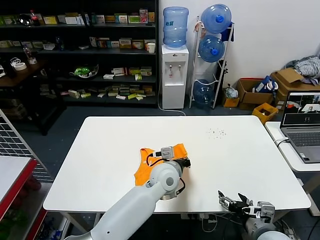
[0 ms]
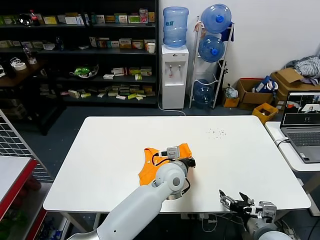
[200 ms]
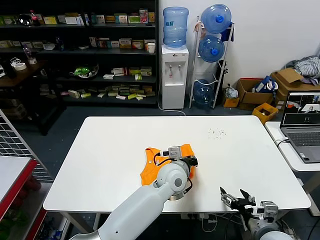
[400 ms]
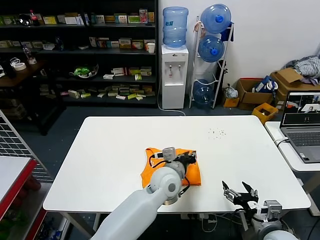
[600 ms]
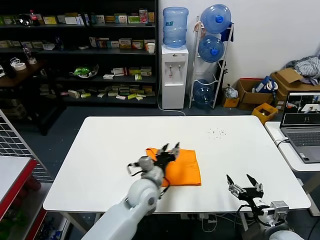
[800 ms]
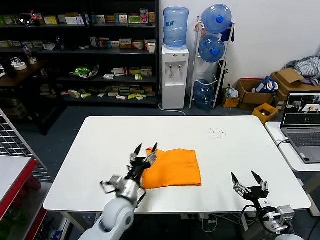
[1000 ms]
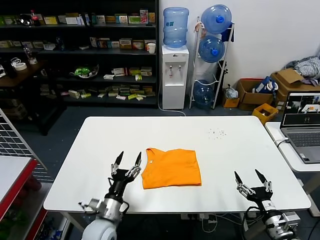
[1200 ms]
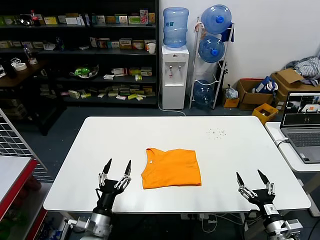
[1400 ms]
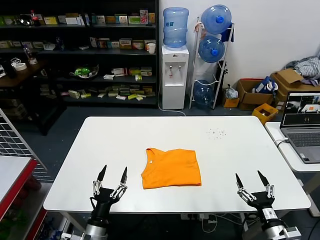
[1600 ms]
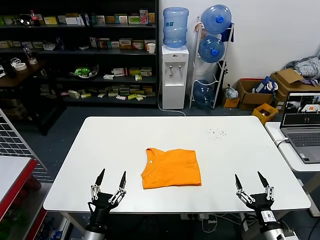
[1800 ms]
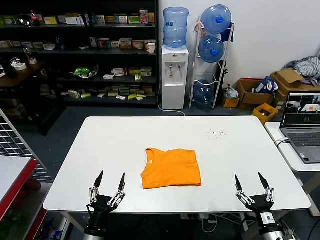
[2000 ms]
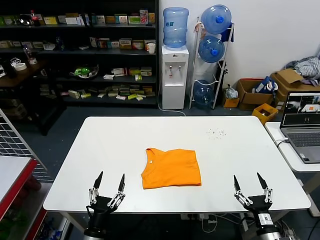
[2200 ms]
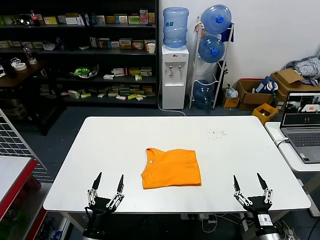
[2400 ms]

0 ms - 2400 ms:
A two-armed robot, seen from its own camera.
Task of the whole recording: fold and organize the clothes.
0 ms - 1200 ms: The left gripper goes approximately 25 cm to the left, backward and downward, and opens up; the right gripper is displaced to the right by roughly 5 cm.
1200 ms - 2400 ms: The right gripper moves roughly 5 cm. The left gripper travels backward by about 10 cm.

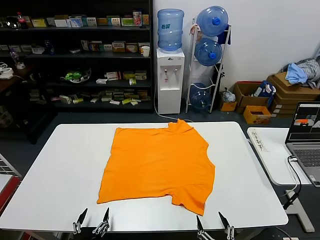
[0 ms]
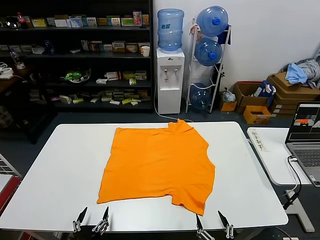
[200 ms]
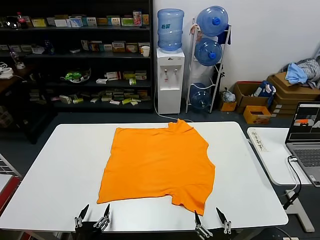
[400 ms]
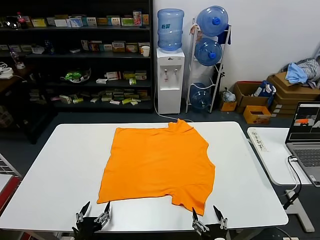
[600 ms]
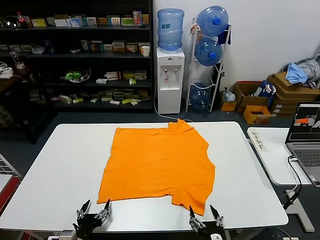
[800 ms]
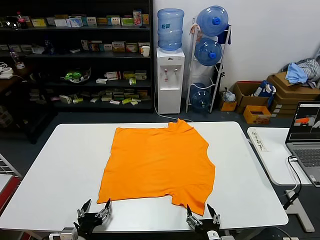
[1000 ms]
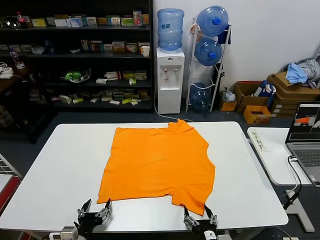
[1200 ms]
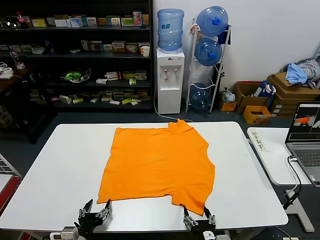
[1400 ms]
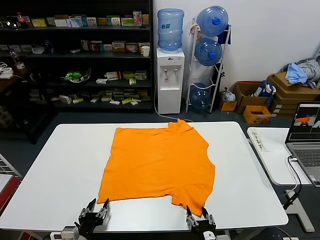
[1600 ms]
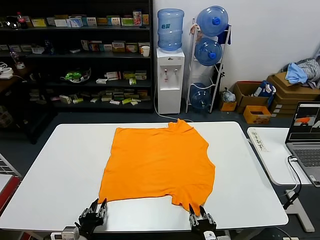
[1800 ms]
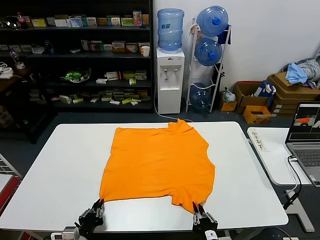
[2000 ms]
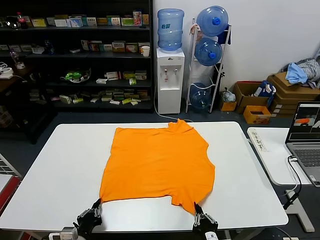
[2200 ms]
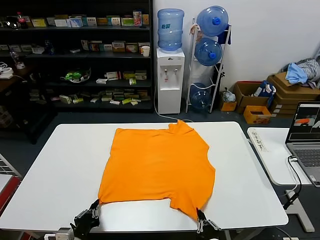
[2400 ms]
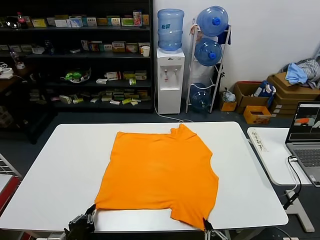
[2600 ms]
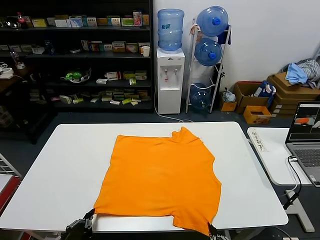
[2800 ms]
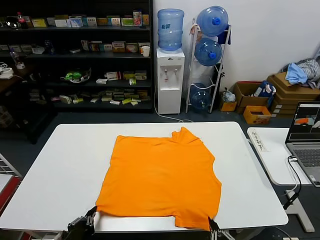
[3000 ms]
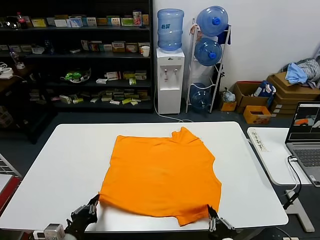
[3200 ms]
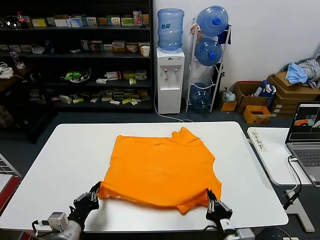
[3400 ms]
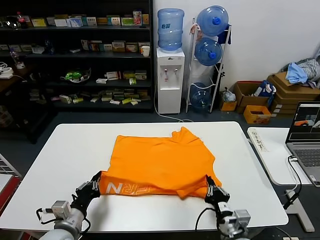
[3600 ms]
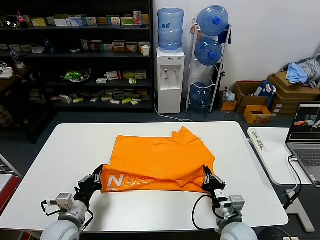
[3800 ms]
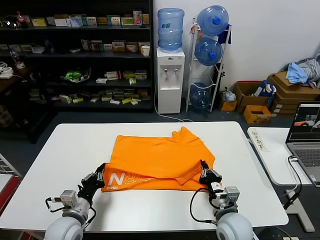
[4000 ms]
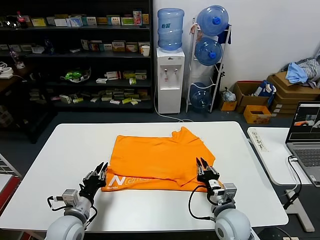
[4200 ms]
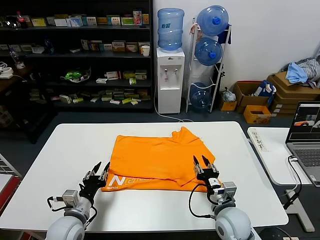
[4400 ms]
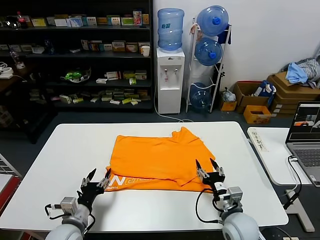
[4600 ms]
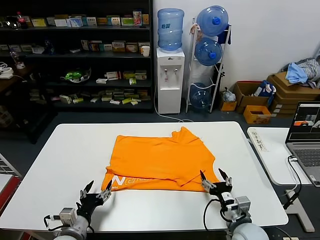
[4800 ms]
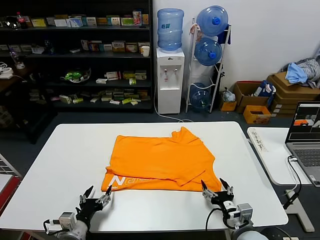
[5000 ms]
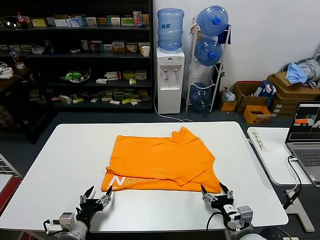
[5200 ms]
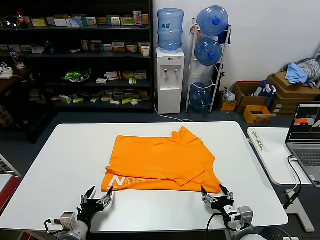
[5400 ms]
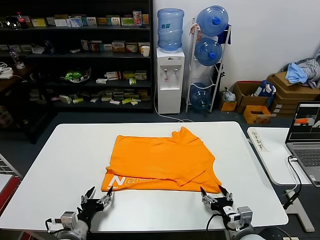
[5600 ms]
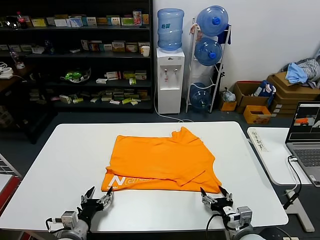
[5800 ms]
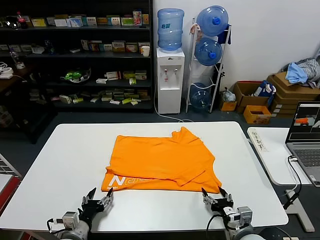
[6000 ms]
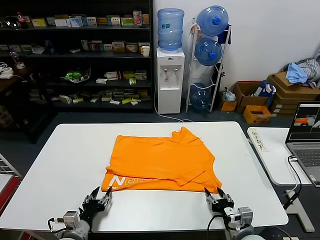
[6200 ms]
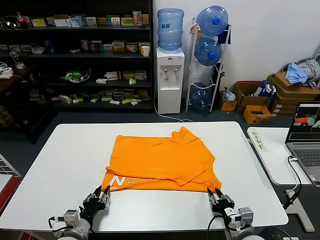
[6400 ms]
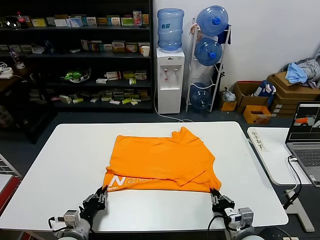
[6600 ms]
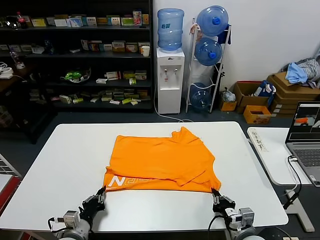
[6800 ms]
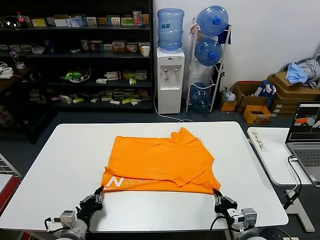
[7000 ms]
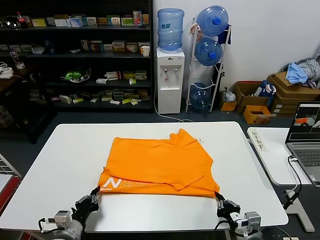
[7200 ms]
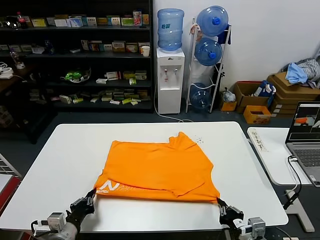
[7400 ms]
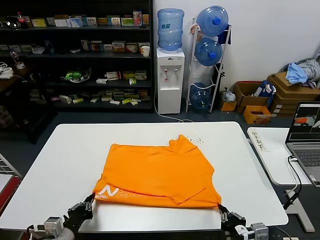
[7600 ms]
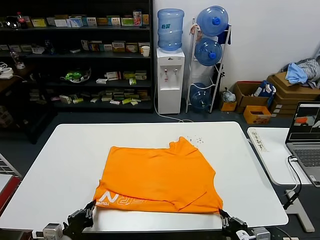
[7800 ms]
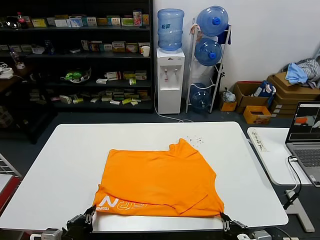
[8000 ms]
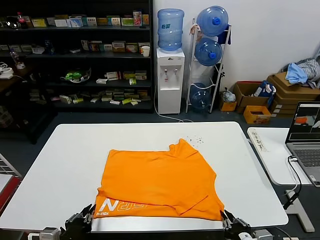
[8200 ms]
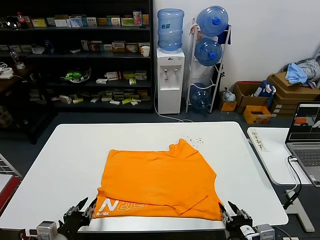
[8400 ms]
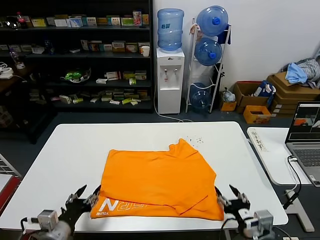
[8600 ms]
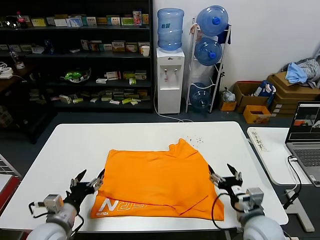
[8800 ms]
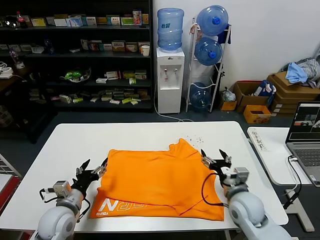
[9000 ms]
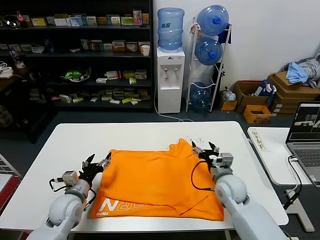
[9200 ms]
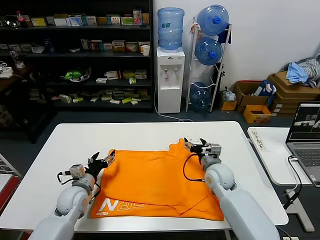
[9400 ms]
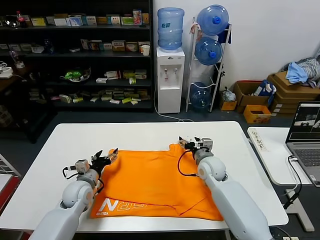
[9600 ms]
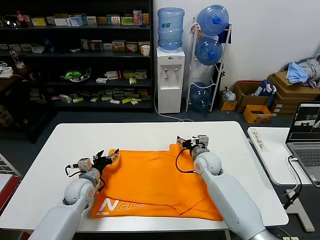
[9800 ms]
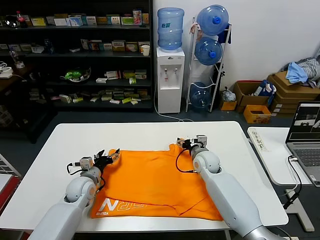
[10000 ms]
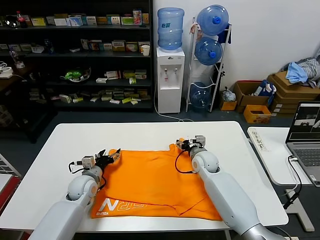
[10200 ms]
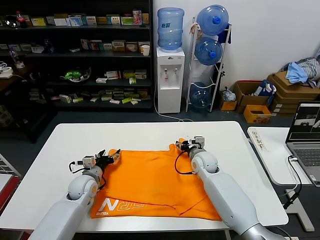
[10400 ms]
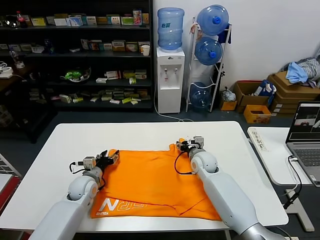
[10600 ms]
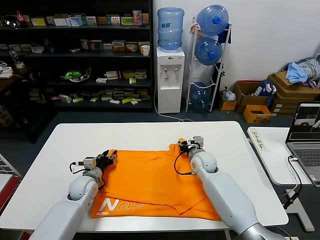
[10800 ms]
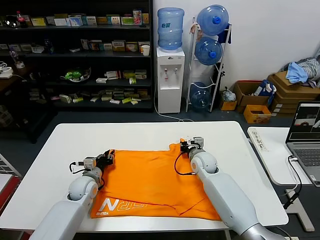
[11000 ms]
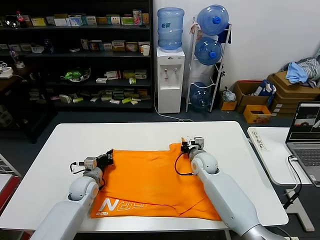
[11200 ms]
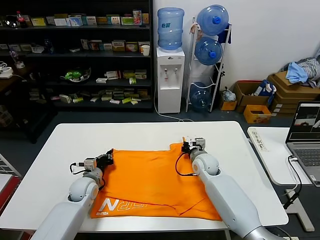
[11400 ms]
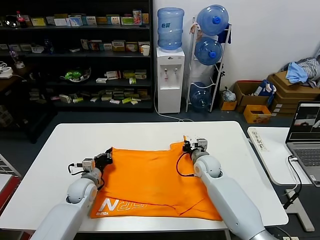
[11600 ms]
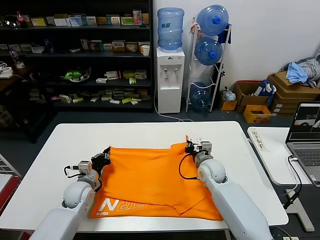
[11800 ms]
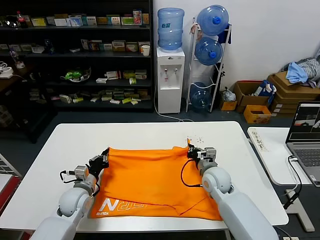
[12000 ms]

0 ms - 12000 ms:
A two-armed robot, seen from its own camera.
Task of the whole recording: fold and organize the clothes.
Step, 0 ms - 2400 ms: use both grippers simultaneously to clamp the lower edge of the clothing fabric.
Step, 2600 ms - 4400 ms: use both grippers to drag the lower edge of the fabric forward and fold it over the upper edge.
Step, 4600 ms - 8200 ms: Drag the clothes downward with both gripper.
Step, 8400 ms - 11400 ms: use both grippers simultaneously to clamp the upper edge of the clothing fabric.
1600 ms - 3000 ms: The right gripper moves backward and upward, approximately 10 cm, and closes its fingers; the left gripper goes approximately 5 cm upward, and closes.
3000 ms - 4400 ms: The right gripper heads forward, covering about 20 cm, and opens; the left gripper travels forward by some 15 cm, and opens.
4400 ms - 6000 ms: The right gripper heads backward, covering some 5 cm, while the left gripper goes some 5 cm downward, and opens up.
6000 ms - 7600 ms: The right gripper travels backward and upward by about 10 cm, and closes; the left gripper is displaced upward by about 5 cm, and closes its fingers.
7600 ms - 9000 ms: The left gripper moves forward, about 10 cm, and opens up. The right gripper goes about 20 cm forward, and opens up.
9000 ms - 10400 ms: The left gripper heads forward, covering some 15 cm. The right gripper travels forward and to the left by roughly 20 cm.
10400 ms - 12000 ms: The right gripper heads backward, covering about 10 cm, and closes up; the left gripper closes.

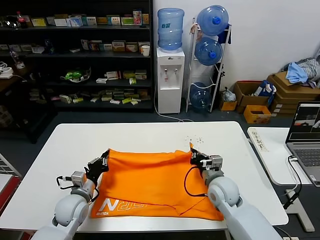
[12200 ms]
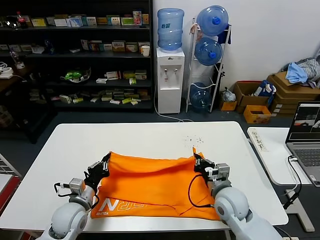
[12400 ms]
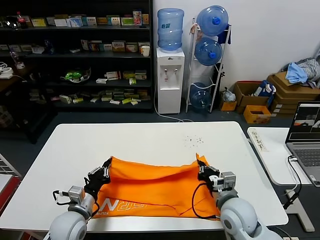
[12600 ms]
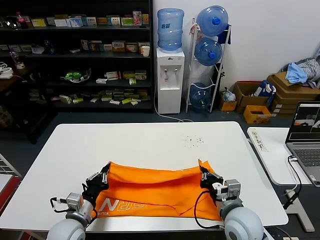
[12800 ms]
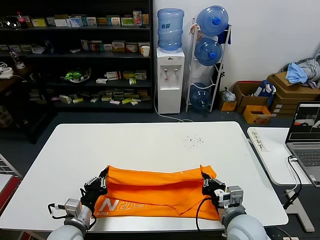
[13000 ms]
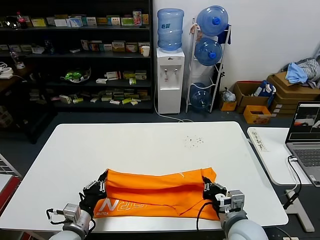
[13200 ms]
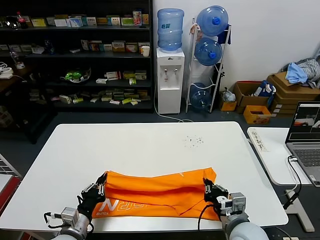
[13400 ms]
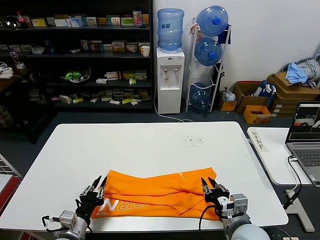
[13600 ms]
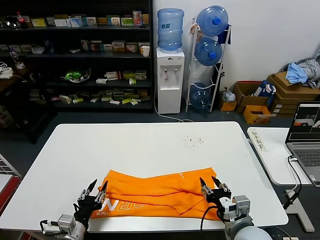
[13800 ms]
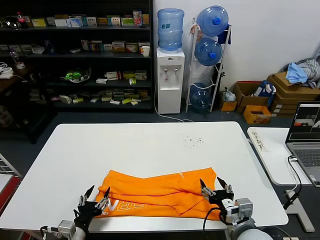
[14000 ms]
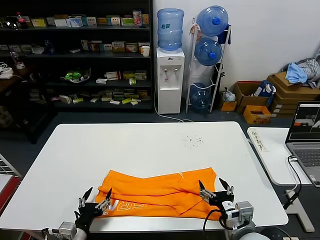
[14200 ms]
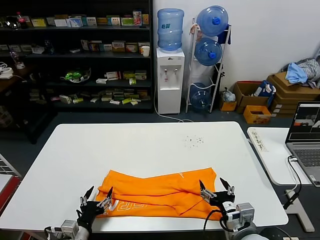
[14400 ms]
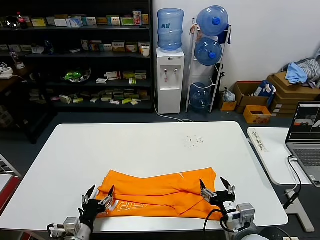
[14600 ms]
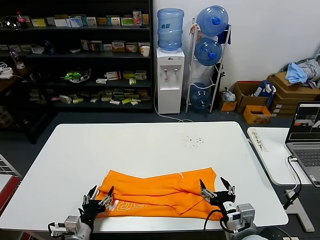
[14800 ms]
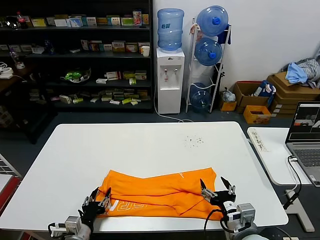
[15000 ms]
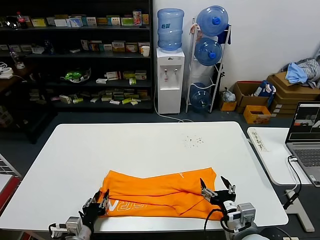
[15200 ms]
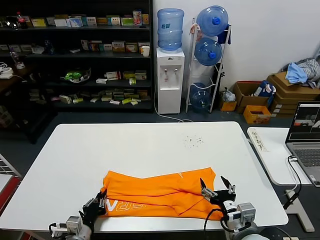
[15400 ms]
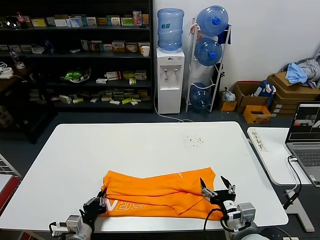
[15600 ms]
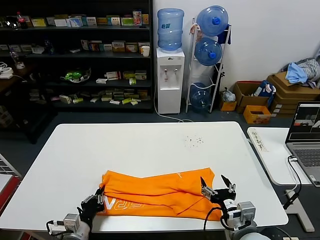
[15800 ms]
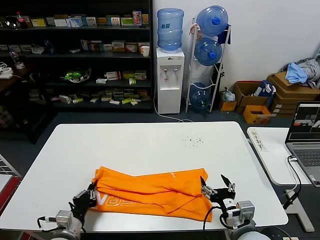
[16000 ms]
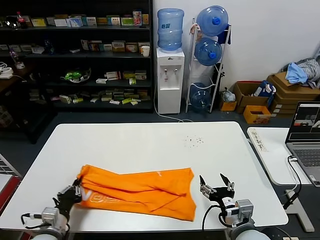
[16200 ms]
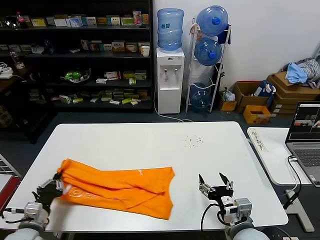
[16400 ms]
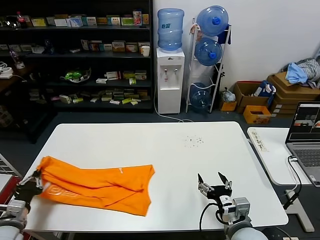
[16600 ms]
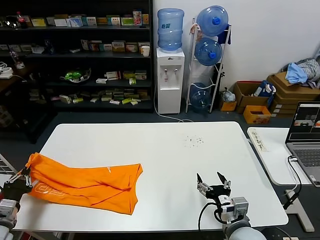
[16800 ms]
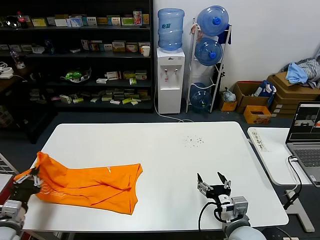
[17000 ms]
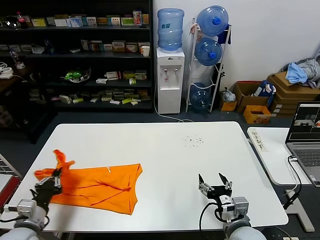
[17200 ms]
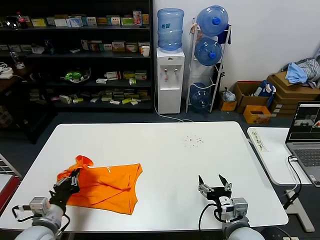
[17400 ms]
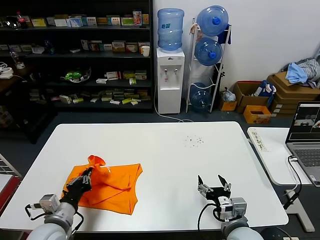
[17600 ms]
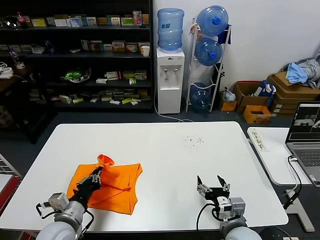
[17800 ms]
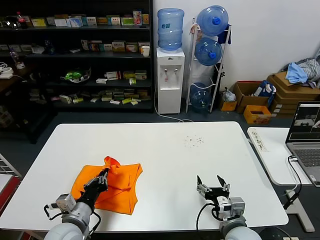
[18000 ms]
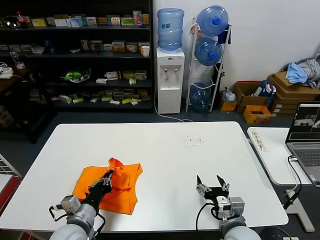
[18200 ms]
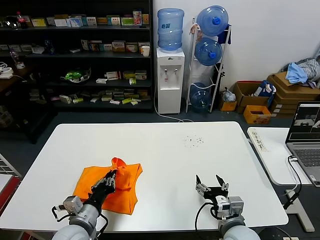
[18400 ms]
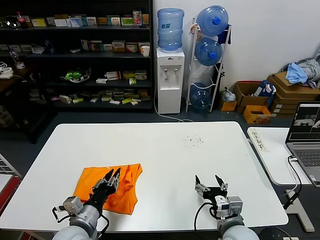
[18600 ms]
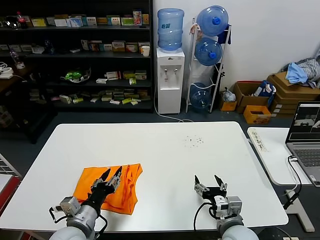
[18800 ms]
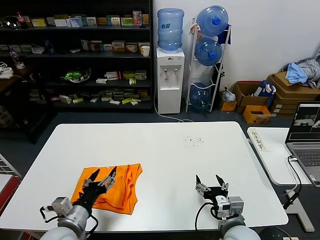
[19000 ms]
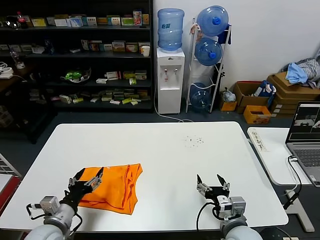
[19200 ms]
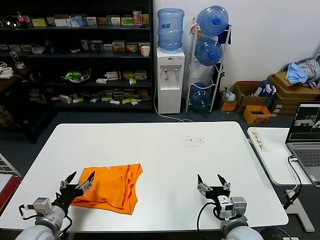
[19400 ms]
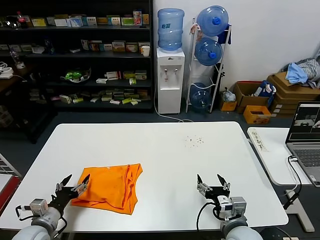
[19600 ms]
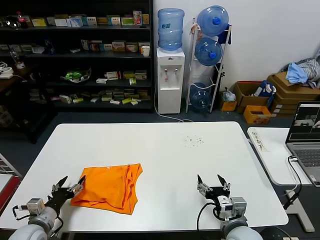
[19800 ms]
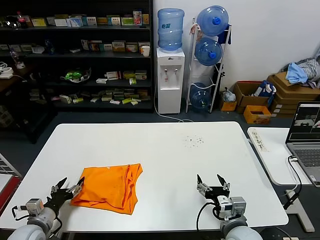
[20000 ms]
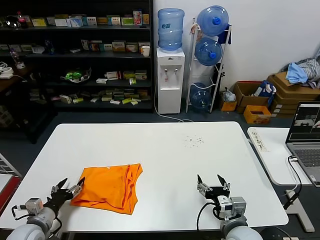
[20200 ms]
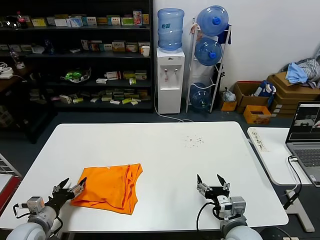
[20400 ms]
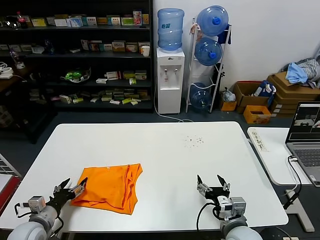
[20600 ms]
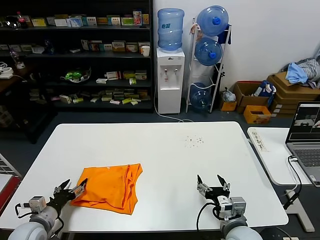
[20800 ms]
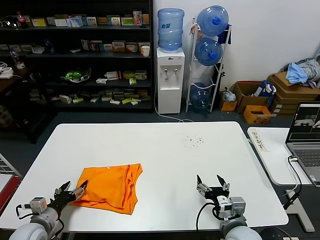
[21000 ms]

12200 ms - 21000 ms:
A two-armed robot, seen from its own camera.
Task of the whole recording: fold and organize the clothes.
Step, 12200 ms - 13600 ms: use both grippers to drag the upper edge of the fabric backward and fold it over the lower edge.
Step, 13800 ms - 15600 ms: use the left gripper to clamp the left edge of the fabric.
Step, 16000 ms - 18800 ms: use the left gripper to drag the left edge of the fabric to the left and folds it over the right edge.
12200 ms - 13600 ms: The two grippers go some 15 cm backward. The right gripper opens its fingers.
13600 ms - 15200 ms: The left gripper opens, then closes once more, while the right gripper opens its fingers.
15200 ms - 16600 ms: The left gripper moves to the left, some 15 cm, and closes its fingers.
16600 ms - 18000 ms: The left gripper goes approximately 20 cm to the right.
18000 ms - 19600 ms: The left gripper is displaced to the left by some 10 cm, and opens up.
19600 ms - 21000 ms: The grippers move only a little.
